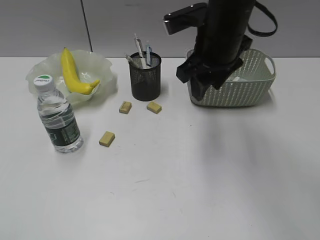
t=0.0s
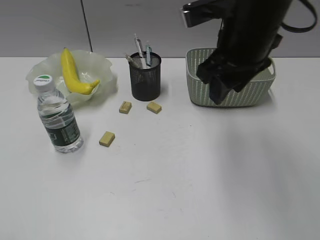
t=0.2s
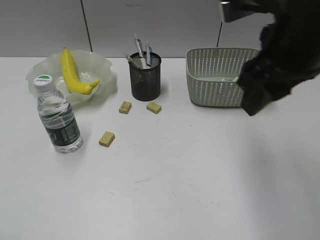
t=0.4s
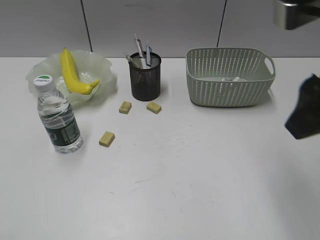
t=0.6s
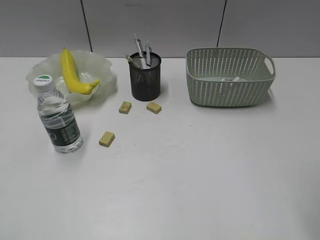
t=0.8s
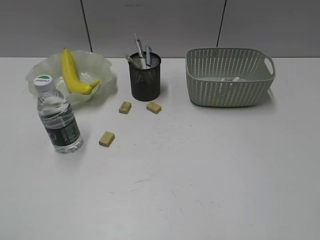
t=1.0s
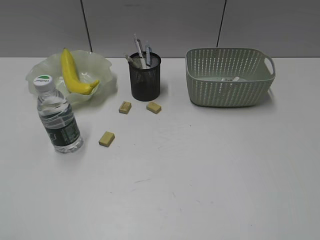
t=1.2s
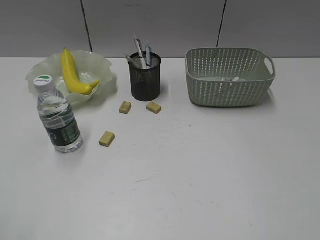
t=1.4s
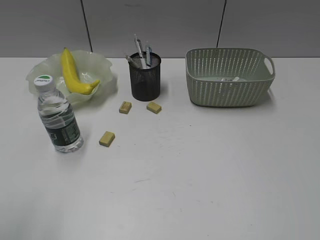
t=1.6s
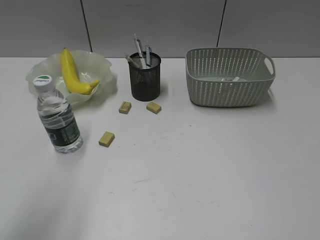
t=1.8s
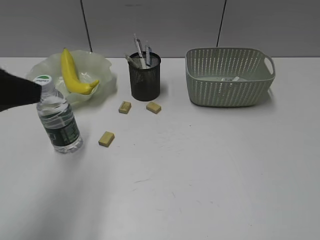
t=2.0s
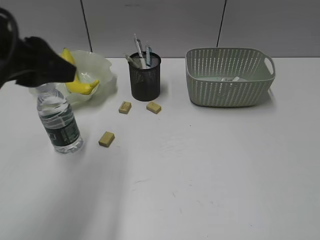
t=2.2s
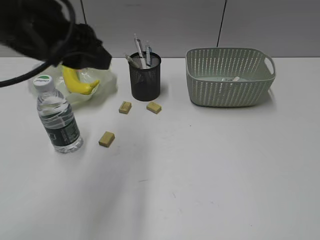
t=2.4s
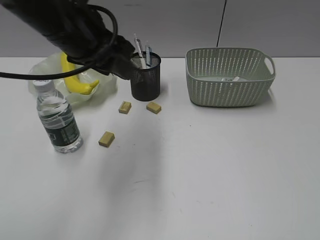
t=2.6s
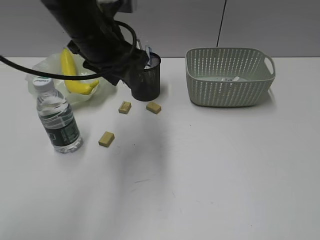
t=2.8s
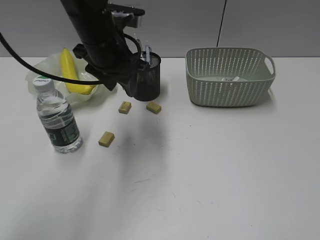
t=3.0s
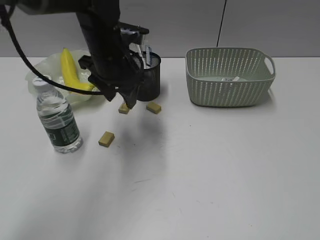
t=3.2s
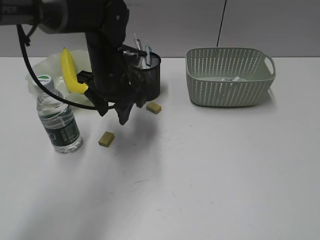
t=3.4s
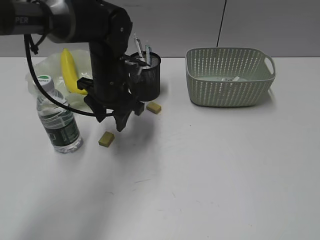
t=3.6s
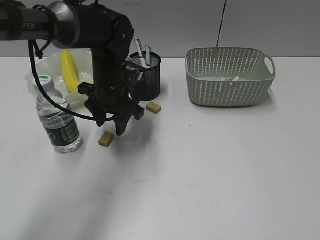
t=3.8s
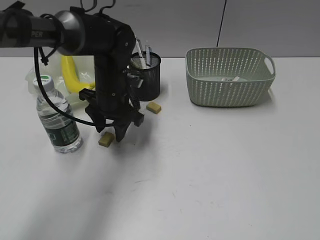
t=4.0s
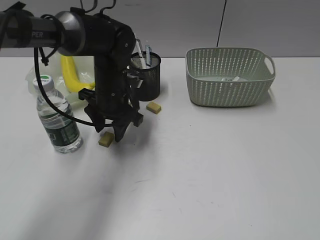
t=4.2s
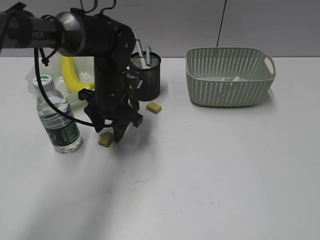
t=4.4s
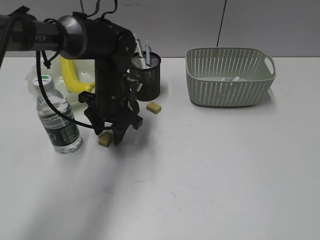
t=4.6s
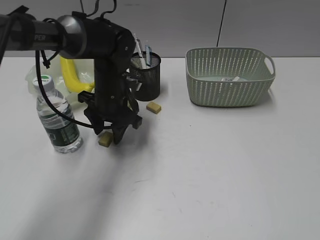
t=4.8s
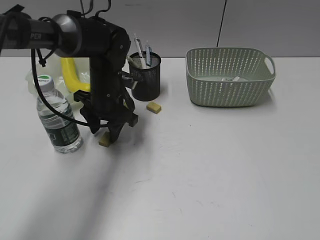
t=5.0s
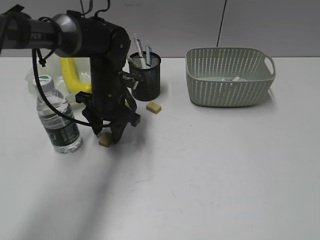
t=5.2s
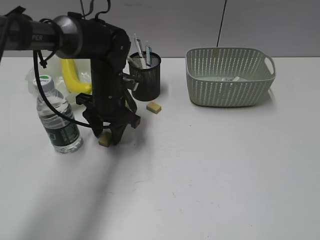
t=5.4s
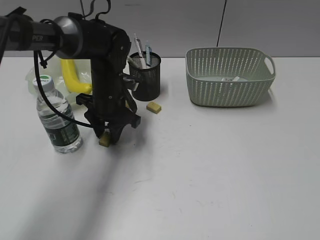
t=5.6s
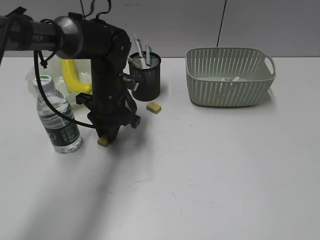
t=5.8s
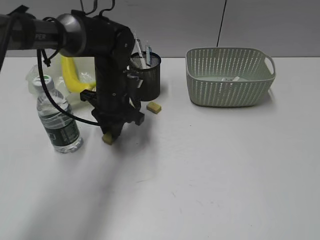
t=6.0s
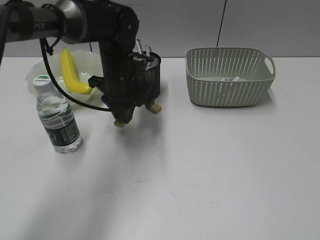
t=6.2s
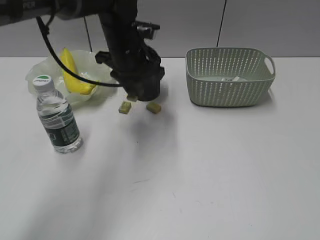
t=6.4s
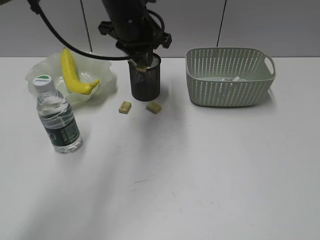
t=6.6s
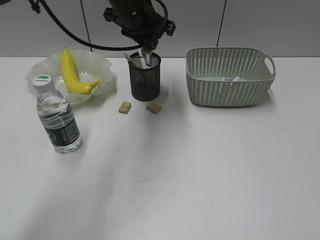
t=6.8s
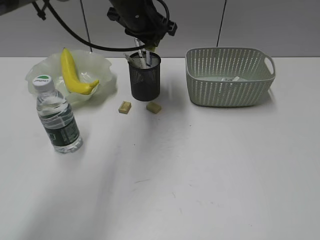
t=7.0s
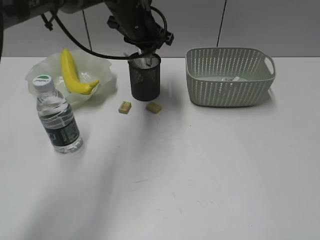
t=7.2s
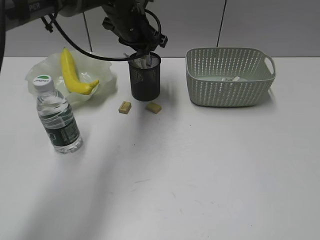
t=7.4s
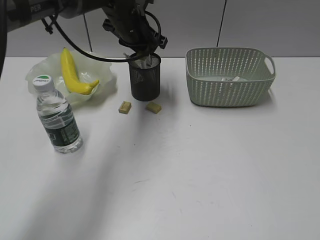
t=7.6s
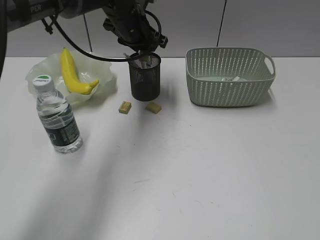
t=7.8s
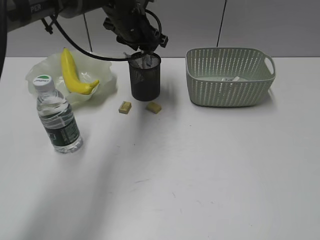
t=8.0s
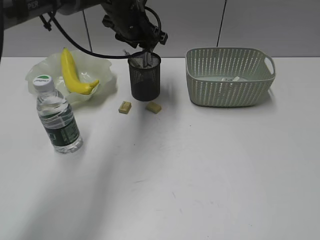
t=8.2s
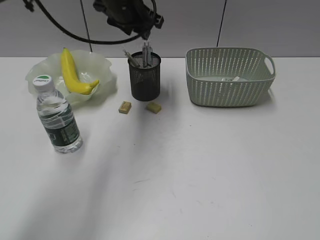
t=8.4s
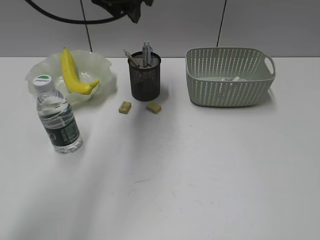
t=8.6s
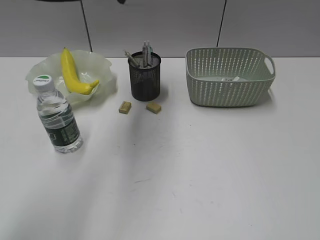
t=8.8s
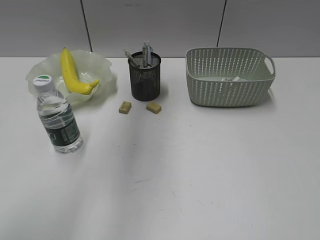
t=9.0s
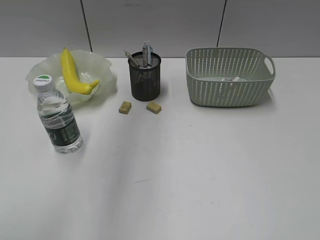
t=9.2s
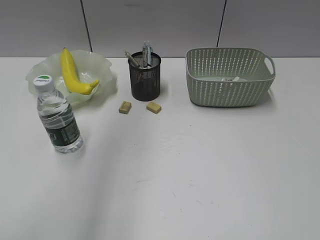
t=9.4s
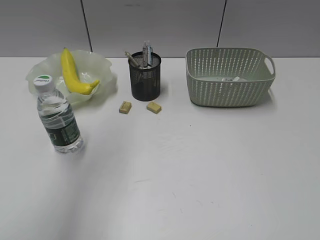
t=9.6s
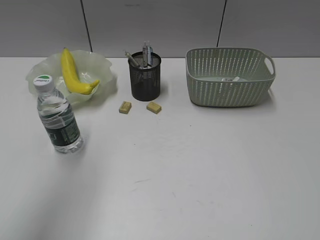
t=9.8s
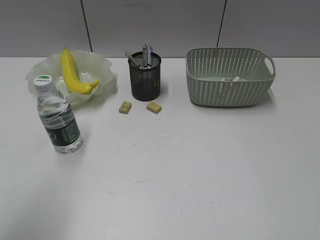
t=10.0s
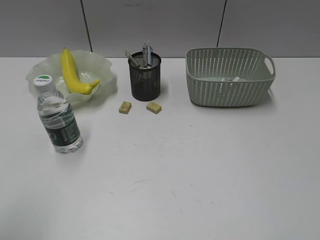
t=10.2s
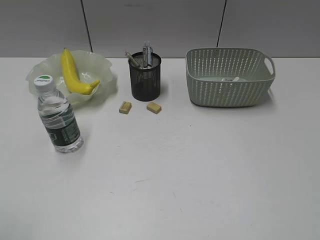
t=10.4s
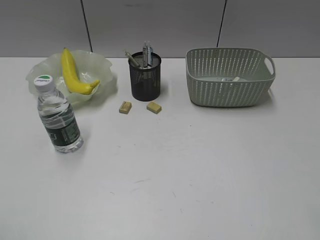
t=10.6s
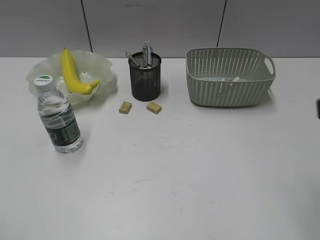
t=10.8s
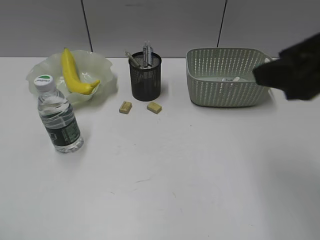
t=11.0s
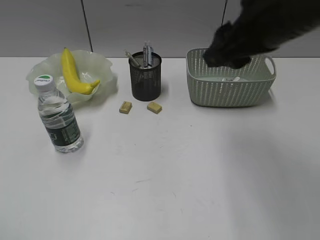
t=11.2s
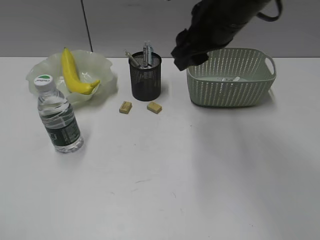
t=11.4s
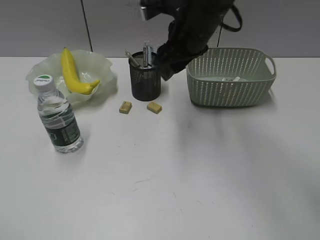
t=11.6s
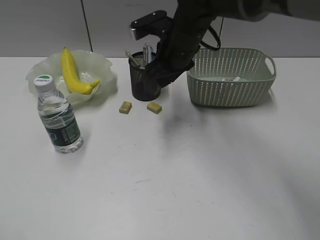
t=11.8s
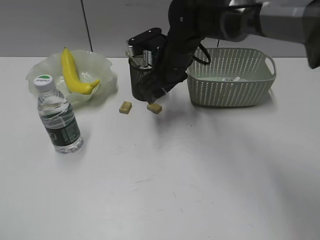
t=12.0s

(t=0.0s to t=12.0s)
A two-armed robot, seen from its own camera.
Step, t=0.0s - t=5.8s: Grasp the eraser with left gripper.
Step, t=6.0s - t=7.8s: Place the eraser in pen holder with left gripper.
t=0.0s - t=1.6s: The left gripper moves roughly 5 cm, while the right gripper heads backward and to the right, covering approximately 40 cm.
t=1.6s - t=3.0s: The left gripper is displaced forward and to the right by roughly 40 cm.
t=3.0s - t=4.4s: The left gripper is displaced downward by approximately 10 cm.
t=4.4s - t=6.0s: The left gripper closes up.
t=6.0s - t=7.6s: The left gripper moves upward and forward, some 15 cm.
t=7.6s - t=9.0s: The left gripper is displaced upward and backward by some 25 cm, and opens its fingers.
t=9.0s - t=10.4s: The left gripper goes about 40 cm backward and to the left.
t=10.4s - t=12.0s: The right gripper moves forward and to the left, about 50 cm.

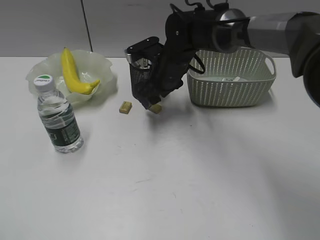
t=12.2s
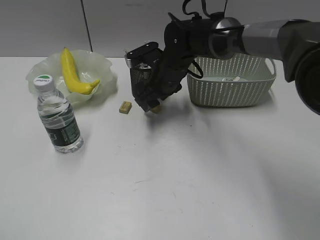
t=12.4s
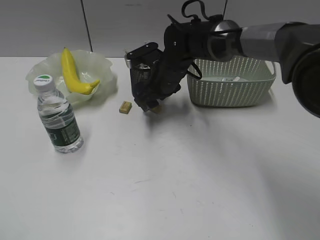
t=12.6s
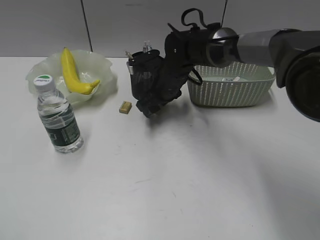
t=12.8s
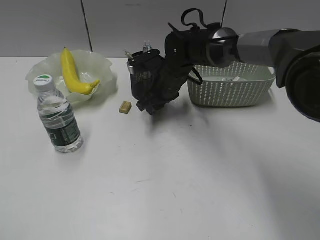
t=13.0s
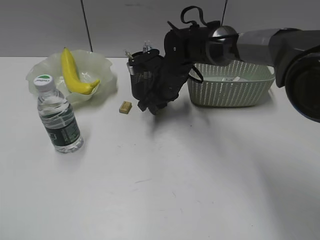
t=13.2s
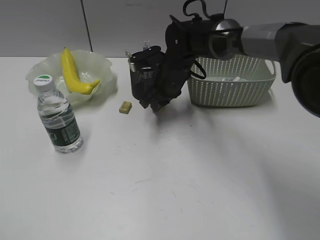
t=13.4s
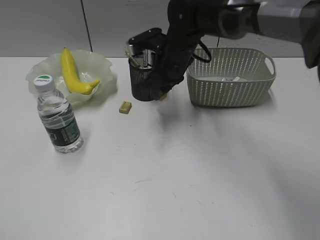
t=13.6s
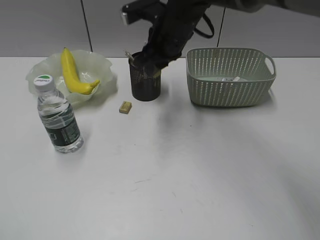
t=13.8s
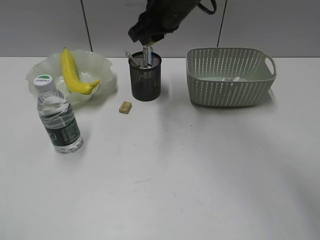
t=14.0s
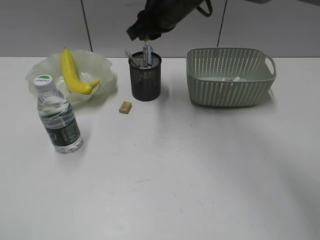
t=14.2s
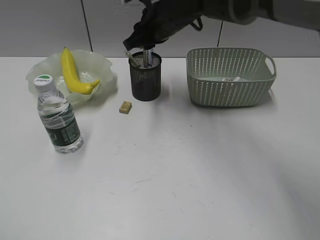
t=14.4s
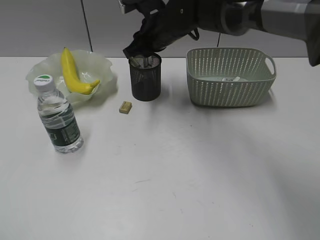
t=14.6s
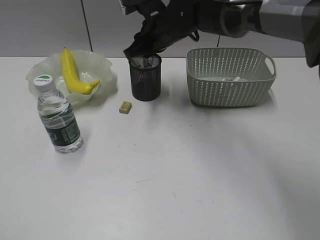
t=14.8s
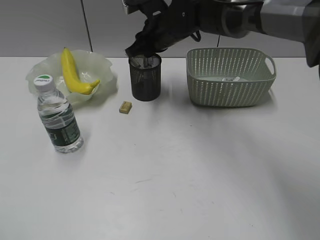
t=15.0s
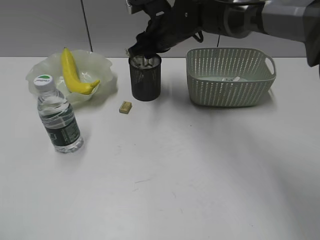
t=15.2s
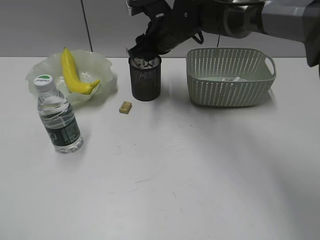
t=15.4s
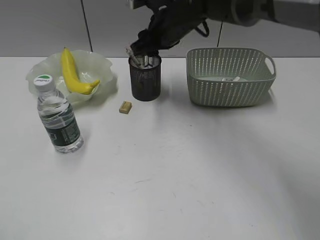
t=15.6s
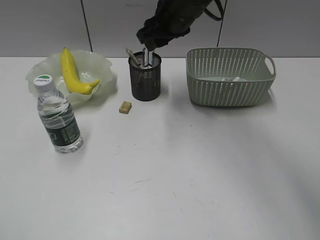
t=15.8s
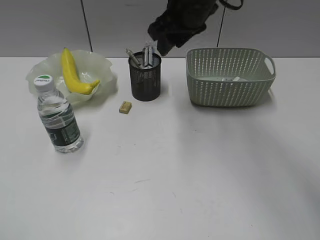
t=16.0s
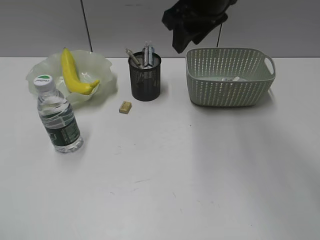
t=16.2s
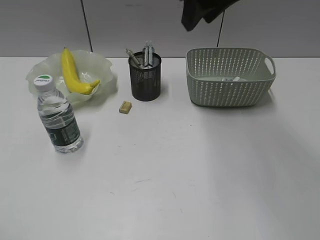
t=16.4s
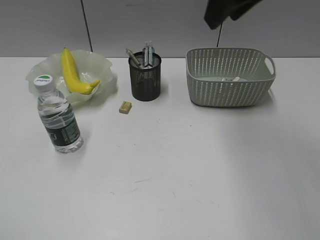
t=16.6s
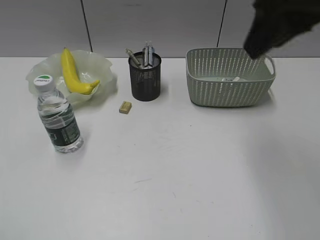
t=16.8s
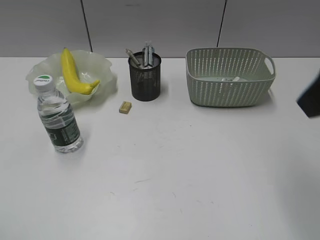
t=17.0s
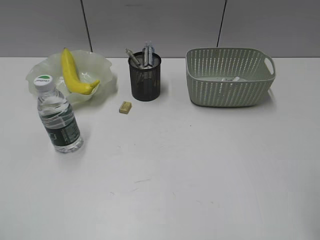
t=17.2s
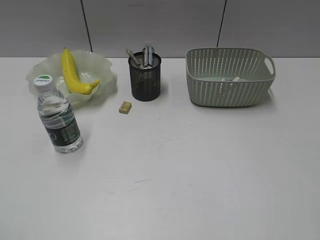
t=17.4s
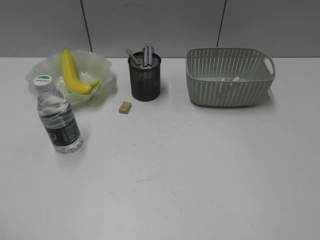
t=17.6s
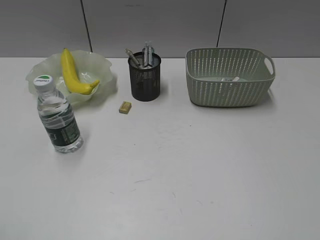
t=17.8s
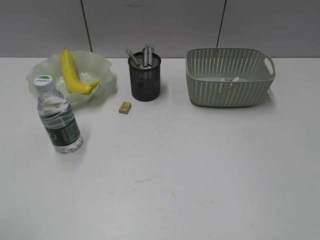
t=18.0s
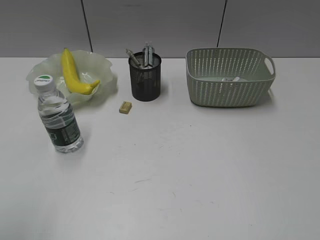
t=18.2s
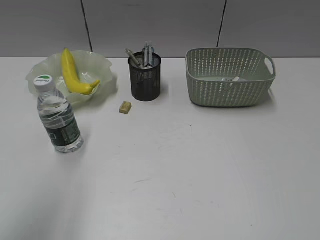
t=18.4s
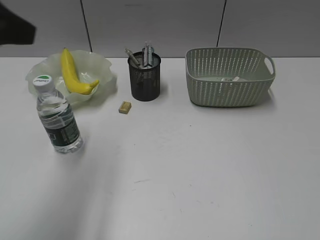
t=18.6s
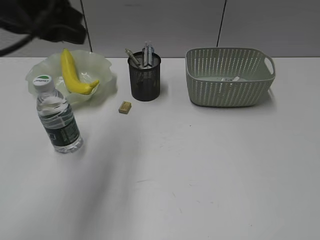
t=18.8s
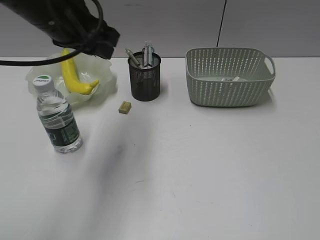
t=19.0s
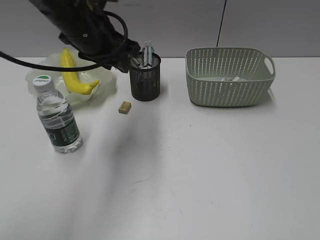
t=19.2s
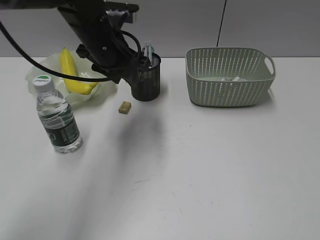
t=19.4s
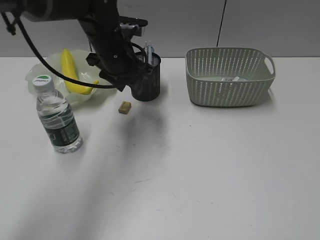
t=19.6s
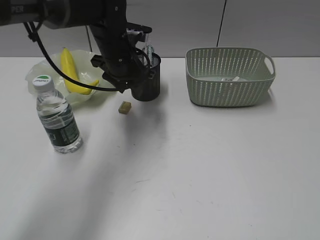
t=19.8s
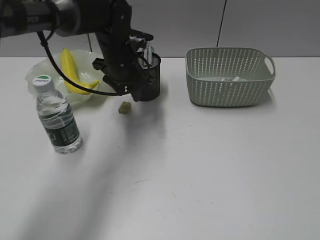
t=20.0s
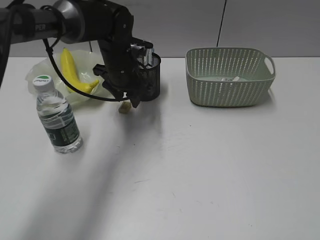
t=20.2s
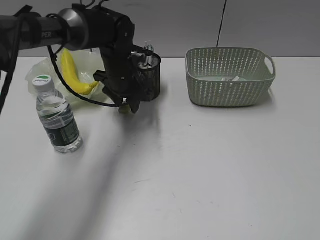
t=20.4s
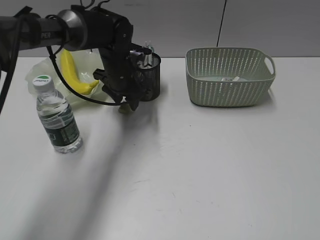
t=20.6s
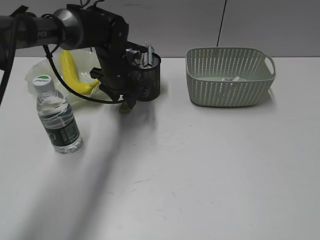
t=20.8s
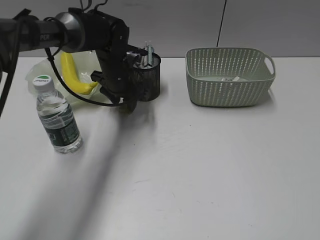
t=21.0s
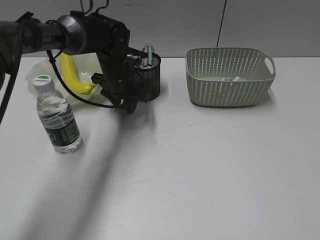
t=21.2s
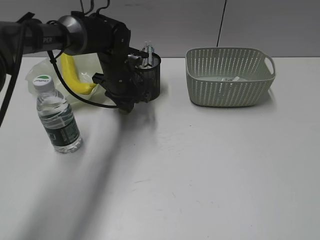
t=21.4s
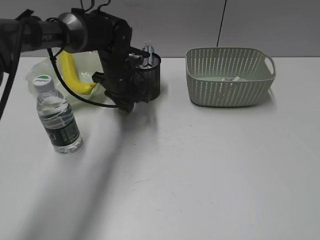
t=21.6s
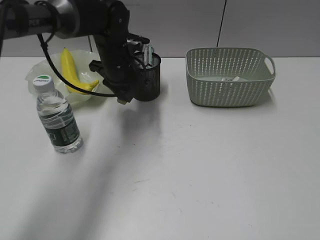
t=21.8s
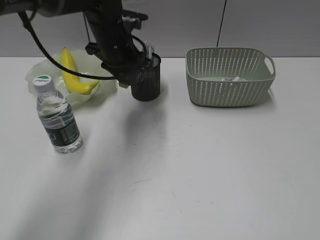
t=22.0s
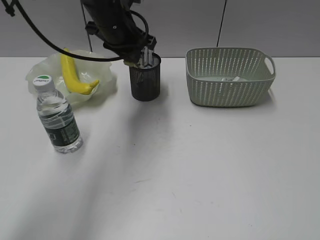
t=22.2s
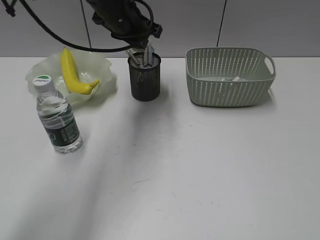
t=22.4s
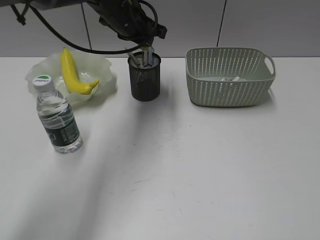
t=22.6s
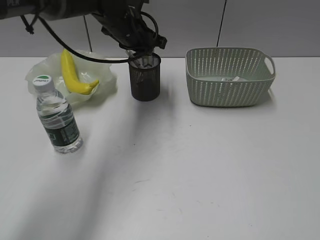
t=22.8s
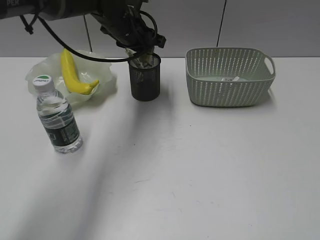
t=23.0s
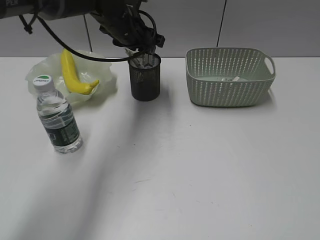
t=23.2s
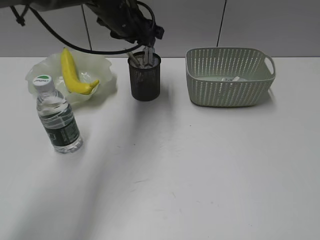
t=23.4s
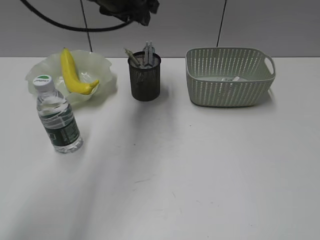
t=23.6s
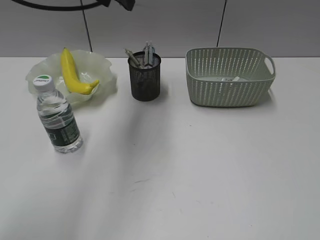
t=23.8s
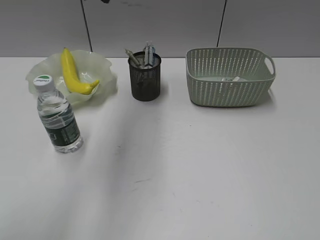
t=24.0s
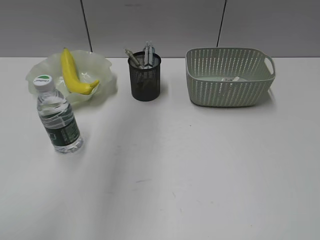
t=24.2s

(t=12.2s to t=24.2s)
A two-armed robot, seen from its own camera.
Step, t=13.2s - t=15.2s: Place the eraser in pen holder with right gripper.
Step, t=15.4s - t=21.4s: Grasp the eraser with left gripper.
Step, t=21.6s - t=23.2s: Place the eraser in pen holder with left gripper.
t=12.2s - t=13.8s: The right gripper shifts approximately 10 cm upward, and closes.
t=13.8s - t=15.2s: The right gripper moves approximately 5 cm, and opens up.
t=15.2s - t=16.6s: The right gripper heads upward, backward and to the right, covering some 25 cm.
t=16.6s - t=18.2s: The right gripper moves backward and to the right, about 35 cm, while the left gripper changes place by approximately 5 cm.
t=18.2s - t=19.8s: The left gripper heads forward and to the right, covering some 40 cm.
t=19.8s - t=21.2s: The left gripper travels downward by about 5 cm.
t=21.2s - t=22.6s: The left gripper shifts roughly 10 cm upward, and closes.
t=22.6s - t=24.2s: The left gripper travels upward, backward and to the left by about 25 cm.
